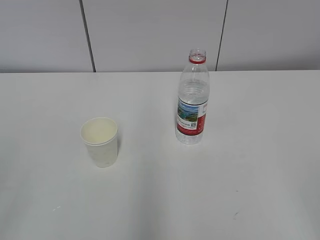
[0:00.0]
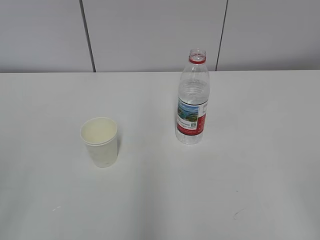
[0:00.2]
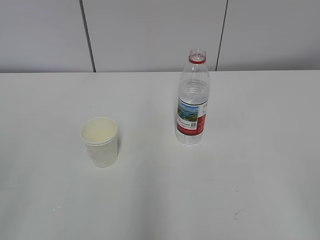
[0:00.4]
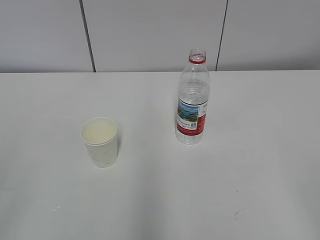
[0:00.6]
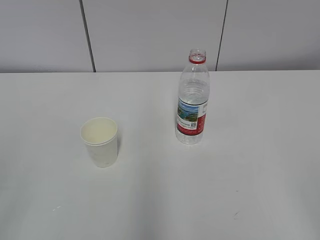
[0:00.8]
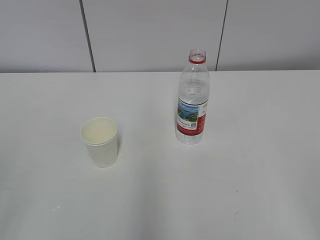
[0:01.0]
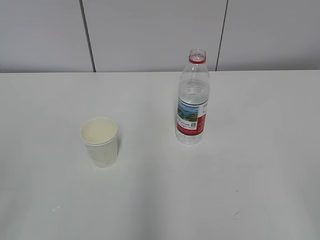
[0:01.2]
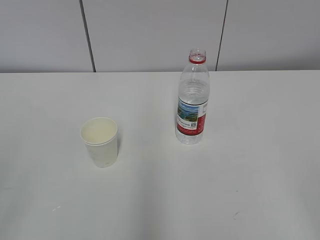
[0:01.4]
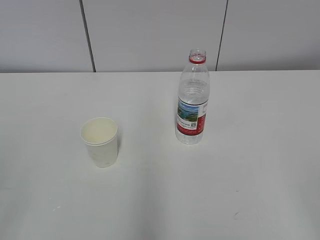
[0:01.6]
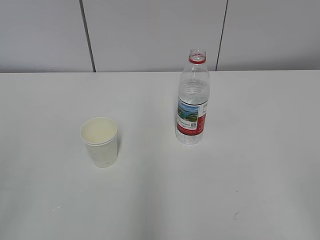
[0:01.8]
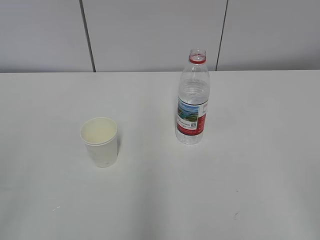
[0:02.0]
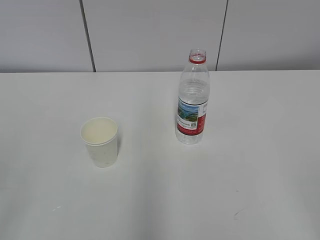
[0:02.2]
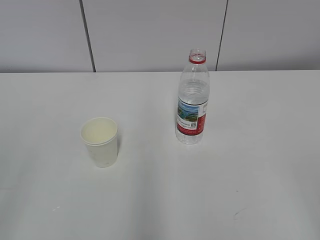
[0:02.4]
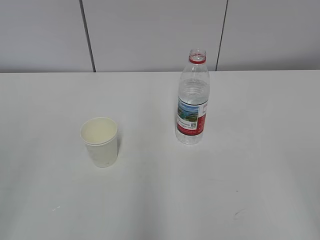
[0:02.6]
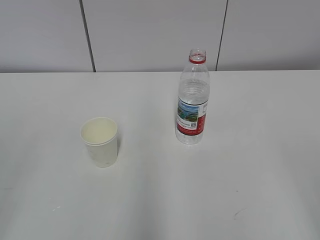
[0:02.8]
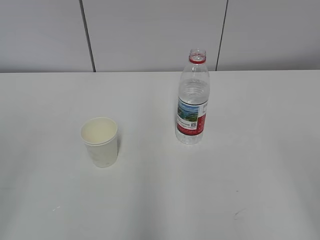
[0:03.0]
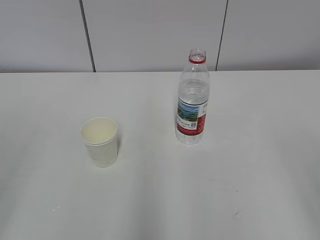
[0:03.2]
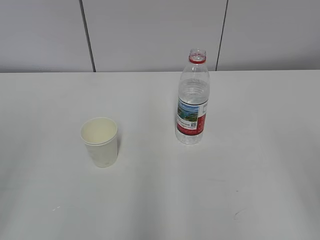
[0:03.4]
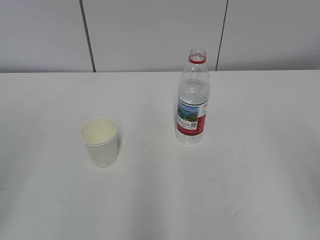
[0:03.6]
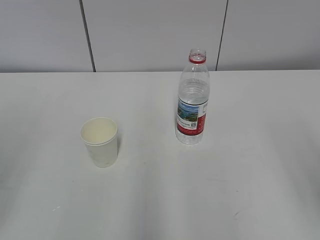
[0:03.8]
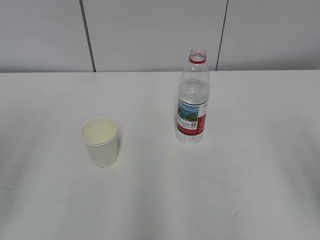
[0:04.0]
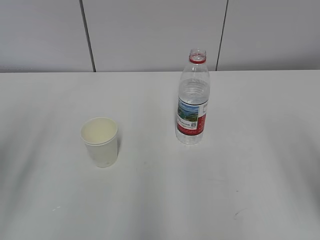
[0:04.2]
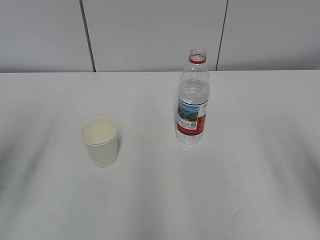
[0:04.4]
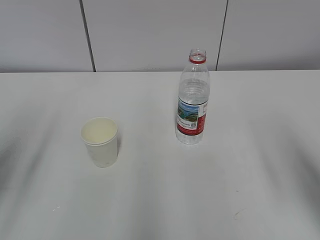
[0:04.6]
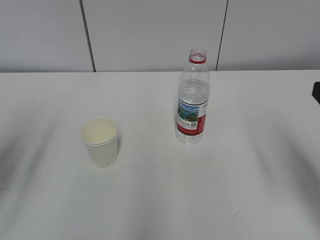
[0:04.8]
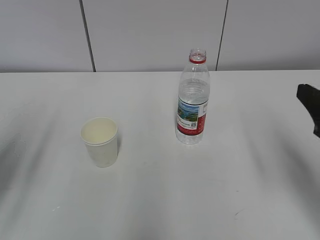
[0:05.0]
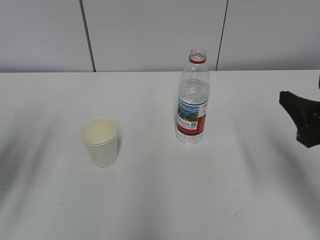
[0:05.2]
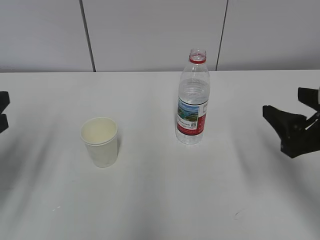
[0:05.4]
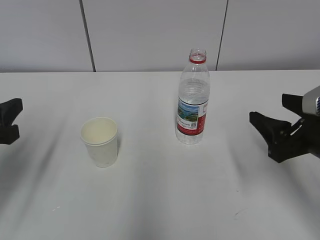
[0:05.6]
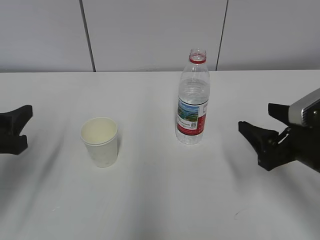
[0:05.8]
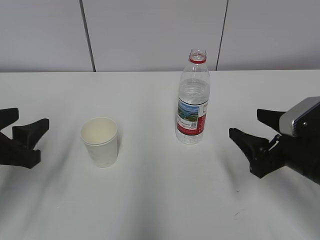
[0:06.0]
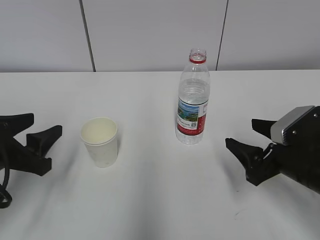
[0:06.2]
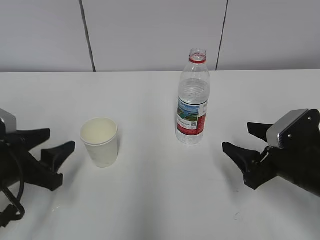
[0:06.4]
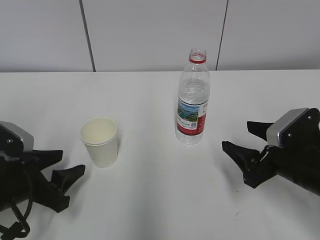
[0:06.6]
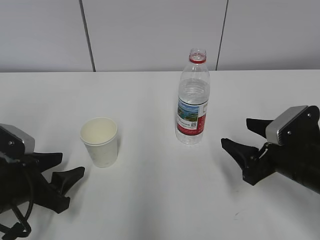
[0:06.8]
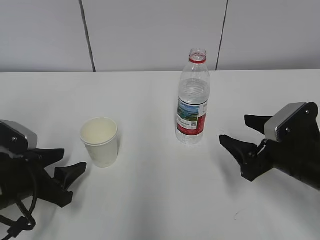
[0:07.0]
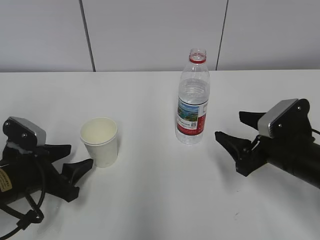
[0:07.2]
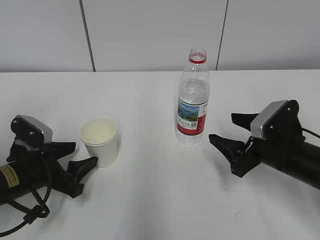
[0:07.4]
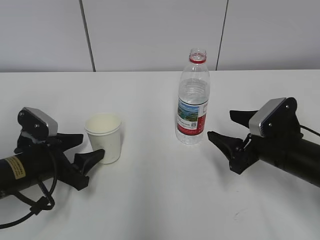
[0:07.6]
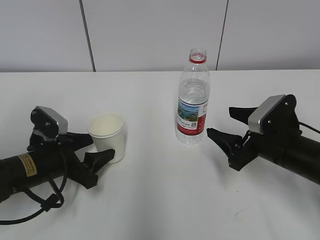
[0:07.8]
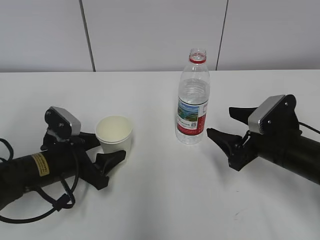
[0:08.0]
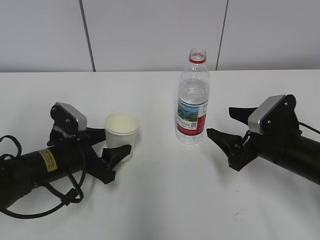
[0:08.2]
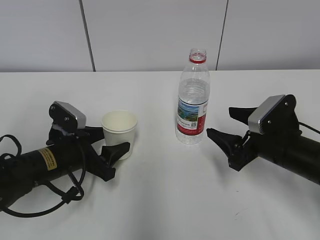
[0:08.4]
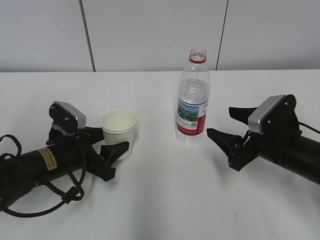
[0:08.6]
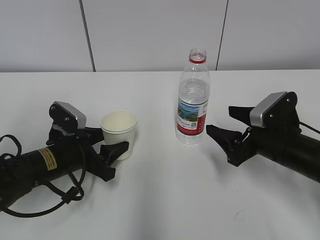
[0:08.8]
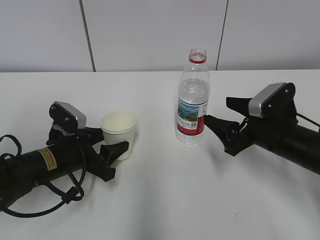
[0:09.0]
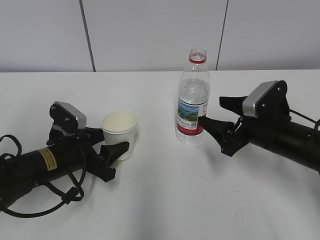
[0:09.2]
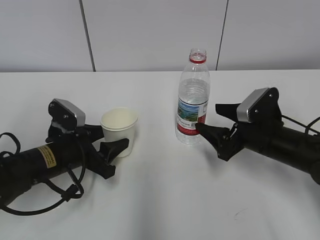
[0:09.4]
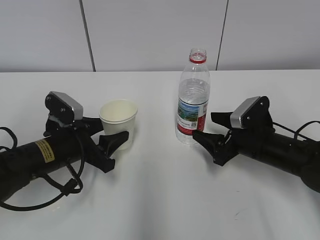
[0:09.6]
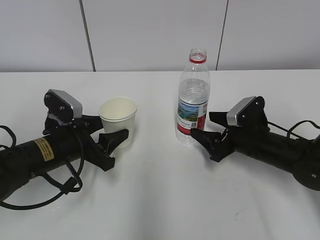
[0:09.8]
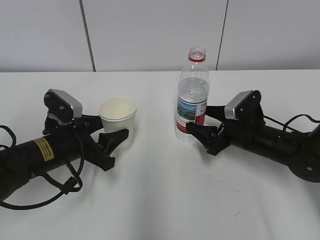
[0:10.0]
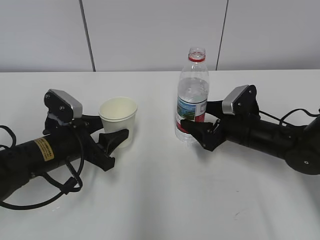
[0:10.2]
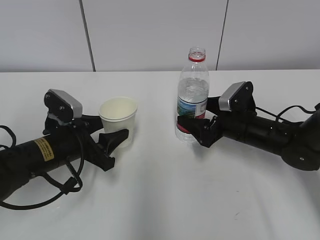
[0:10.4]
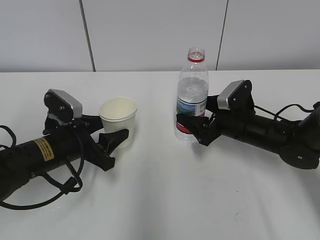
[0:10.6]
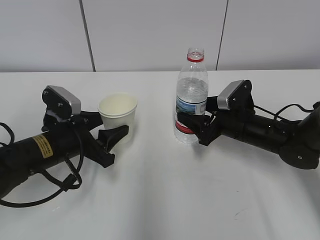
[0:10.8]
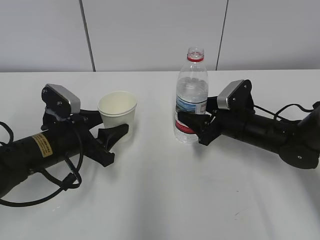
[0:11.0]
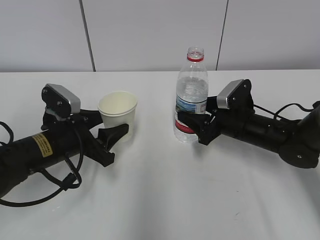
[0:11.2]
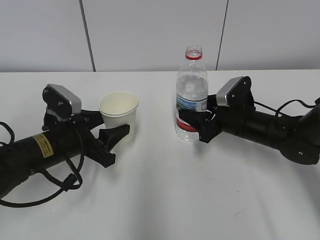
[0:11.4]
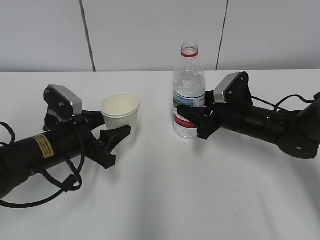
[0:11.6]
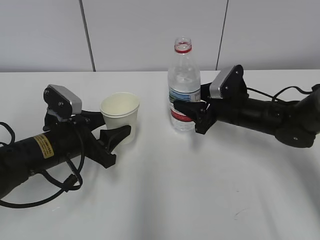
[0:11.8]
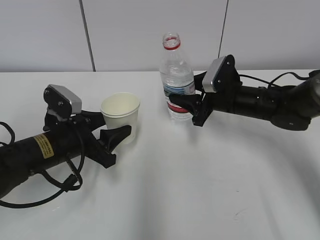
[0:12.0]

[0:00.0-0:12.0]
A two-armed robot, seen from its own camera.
Step, 0:00.0 to 0:07.6: Grab the paper cup with the left hand.
Step, 0:07.8 to 0:09.2: Grab the water bottle with the right hand.
0:03.0 to 0:04.4: The right gripper shifts some 10 cm forward.
0:04.4 to 0:06.0: Both grippers travel together downward and forward, some 15 cm.
0:06.0 to 0:07.6: The left gripper moves downward and forward, about 10 cm, while the right gripper ends up approximately 5 cm from where it was.
0:07.6 to 0:09.0: The grippers make only small movements.
0:09.0 to 0:10.4: The right gripper heads forward, covering some 5 cm.
0:10.4 to 0:12.0: The right gripper shifts by roughly 5 cm, and closes.

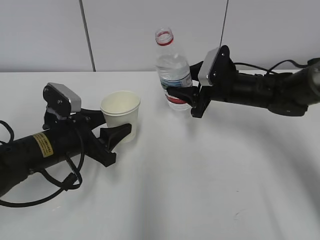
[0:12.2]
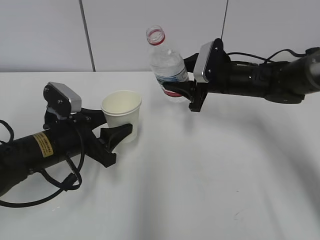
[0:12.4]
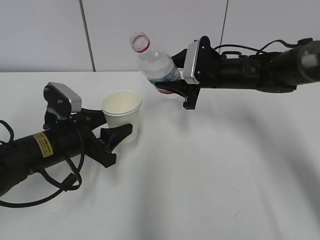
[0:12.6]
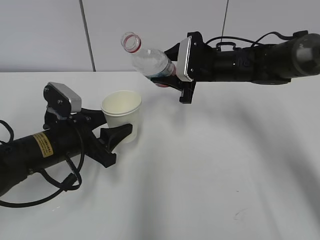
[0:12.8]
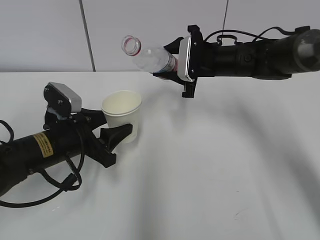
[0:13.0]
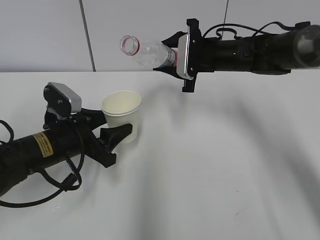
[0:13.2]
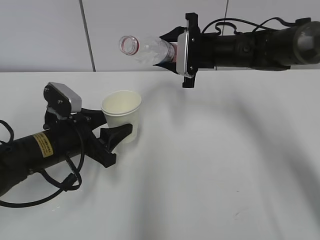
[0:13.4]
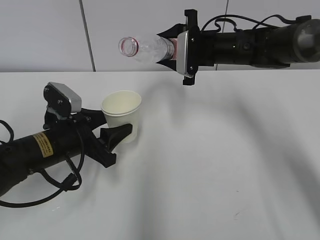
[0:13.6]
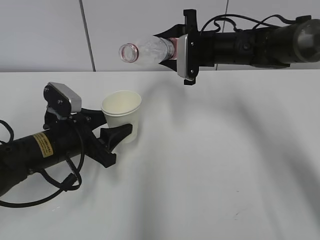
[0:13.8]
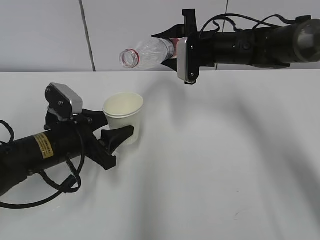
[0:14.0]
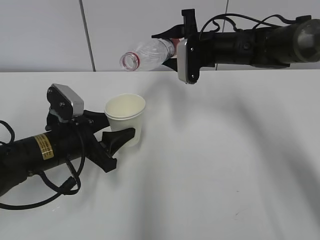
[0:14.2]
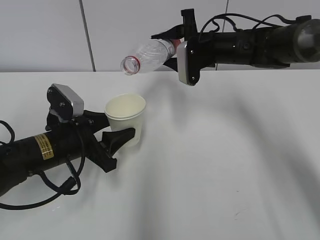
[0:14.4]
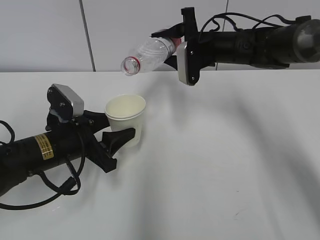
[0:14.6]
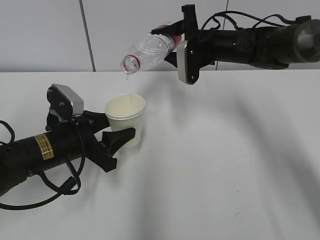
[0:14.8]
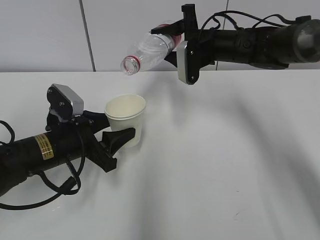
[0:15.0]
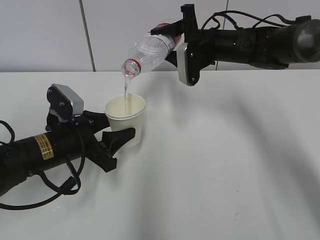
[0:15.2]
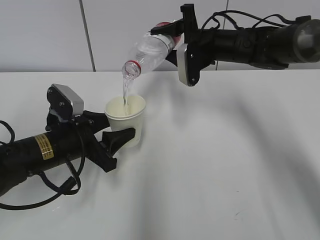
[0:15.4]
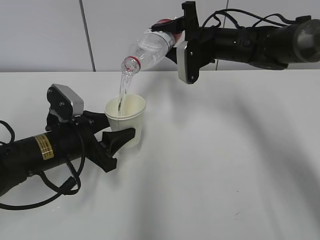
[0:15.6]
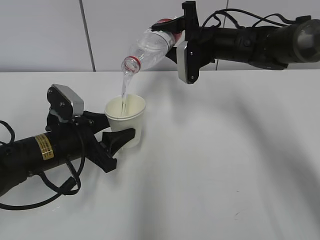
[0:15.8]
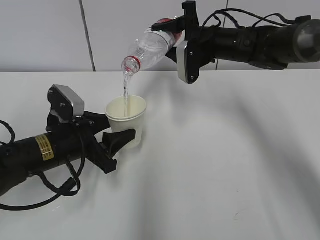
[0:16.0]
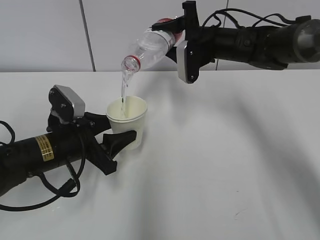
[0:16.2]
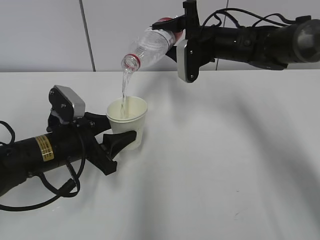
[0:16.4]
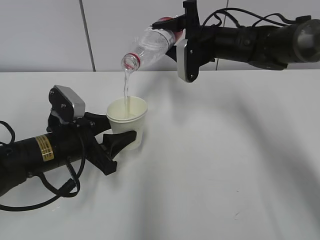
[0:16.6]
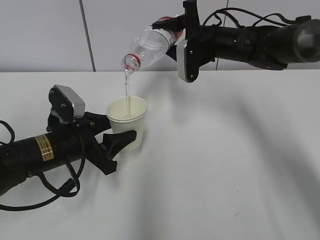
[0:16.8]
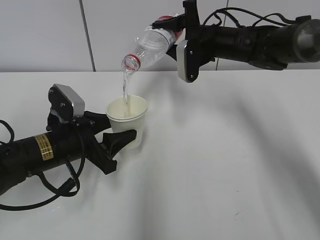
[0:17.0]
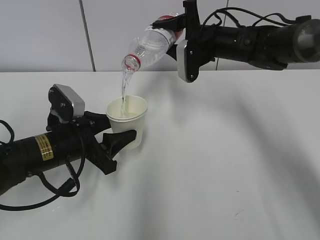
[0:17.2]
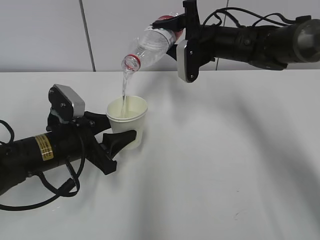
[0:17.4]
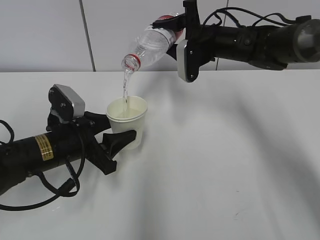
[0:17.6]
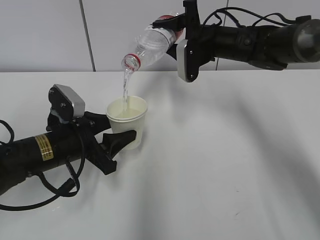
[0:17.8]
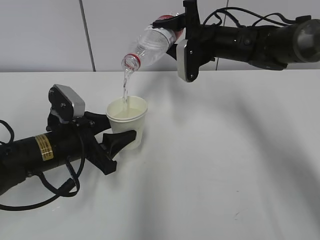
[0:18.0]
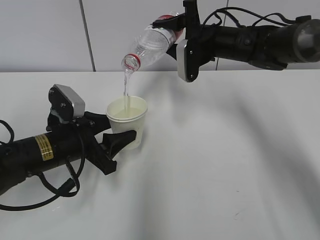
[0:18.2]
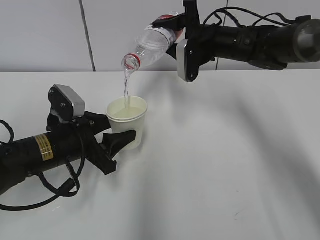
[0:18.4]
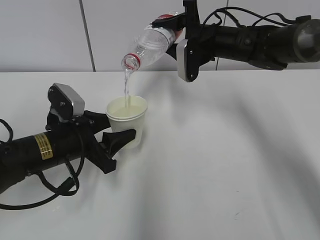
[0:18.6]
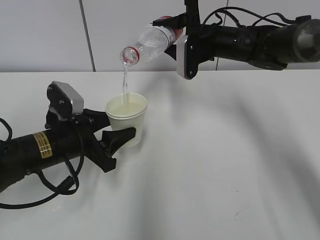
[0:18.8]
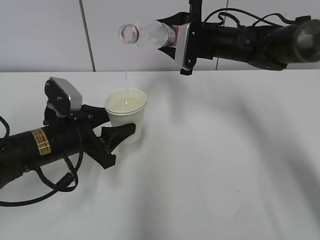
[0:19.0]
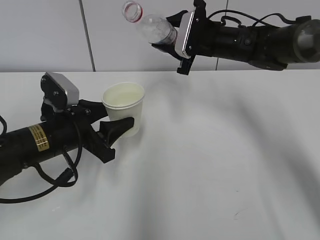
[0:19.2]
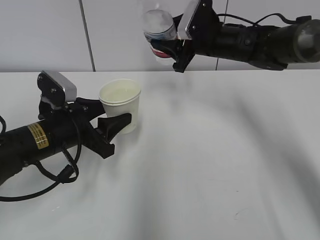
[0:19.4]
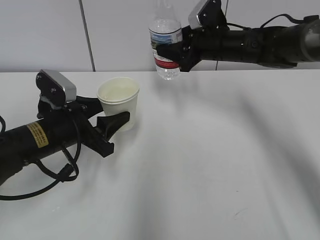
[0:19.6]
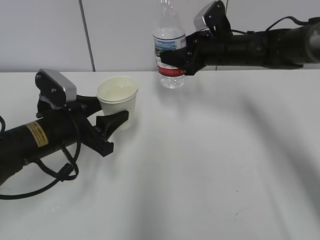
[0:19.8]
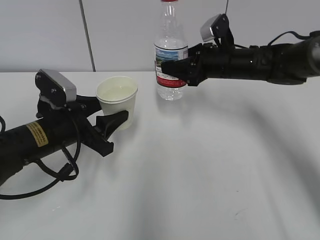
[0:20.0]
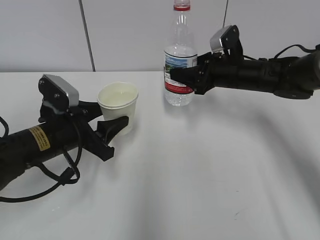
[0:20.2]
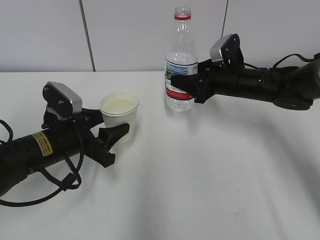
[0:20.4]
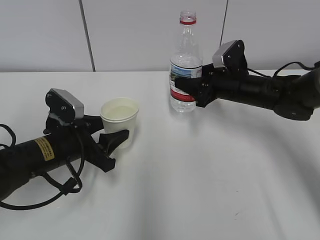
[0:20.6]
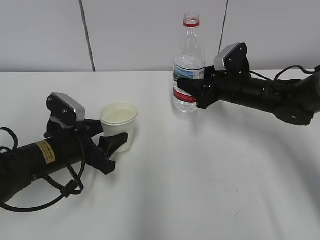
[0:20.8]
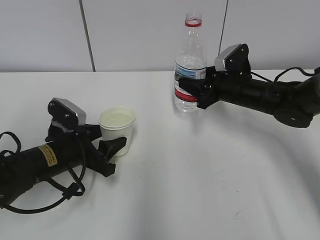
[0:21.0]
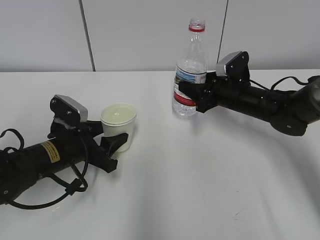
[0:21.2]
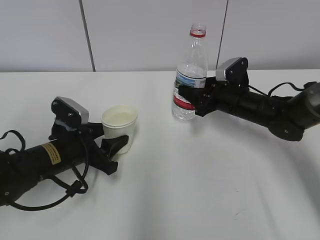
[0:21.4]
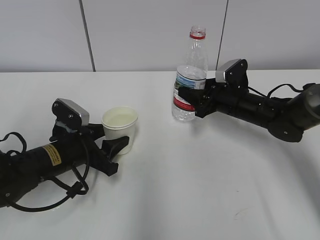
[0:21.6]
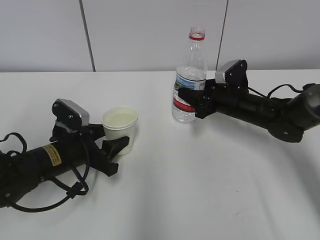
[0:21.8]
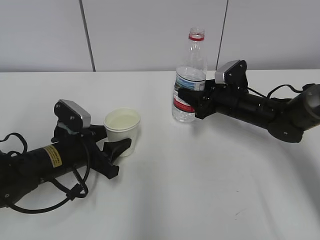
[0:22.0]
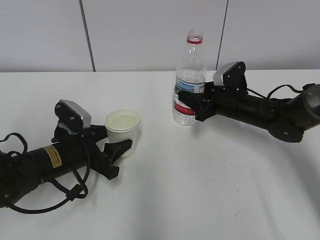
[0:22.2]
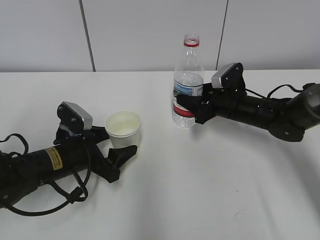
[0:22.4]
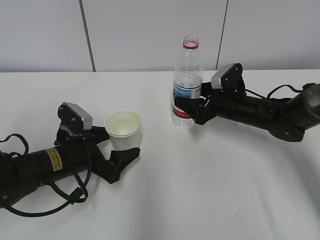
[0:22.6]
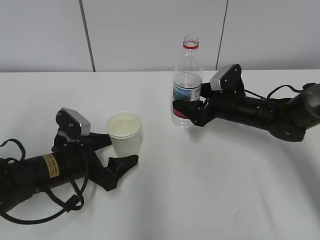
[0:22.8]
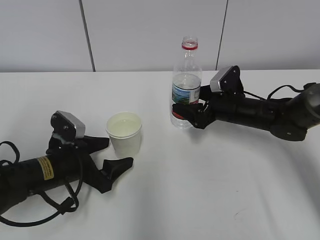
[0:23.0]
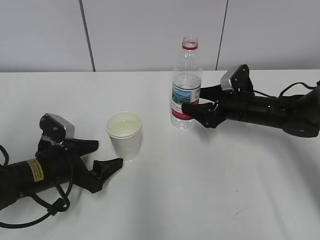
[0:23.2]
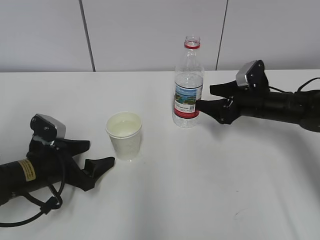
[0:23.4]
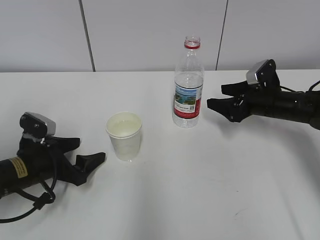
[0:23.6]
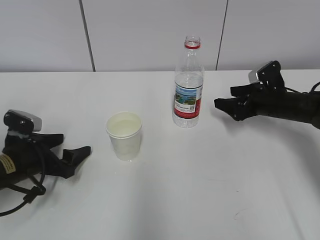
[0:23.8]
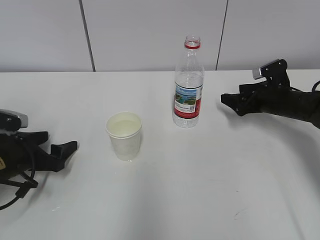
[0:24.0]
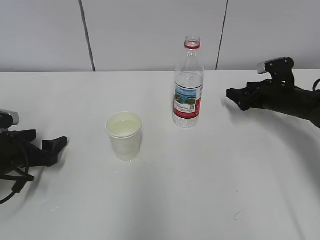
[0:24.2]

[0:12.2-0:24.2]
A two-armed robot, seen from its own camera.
Step, 0:12.4 to 0:15.8: Pour water with the right hand.
Step, 0:16.0 to 0:16.6: Collect water with the right hand.
Step, 0:16.8 to 0:18.8: Place the paper cup with the left hand.
Step, 0:19.0 to 0:19.4: Place the water bottle with the right hand.
0:12.2 to 0:13.8: The right gripper travels upward by about 5 cm.
0:13.8 to 0:15.2: The grippers make only small movements.
0:15.2 to 0:18.2: Both grippers stay about where they are.
0:19.8 to 0:21.2: The left gripper heads downward, covering approximately 5 cm, while the right gripper shifts approximately 10 cm downward.
0:21.2 to 0:22.6: The left gripper opens up; the right gripper opens up.
0:22.6 to 0:24.2: The left gripper moves to the left, roughly 15 cm. The right gripper shifts some 10 cm to the right.
